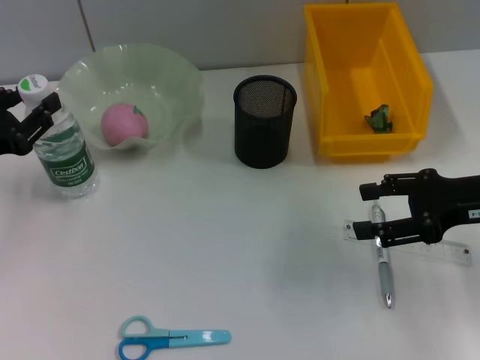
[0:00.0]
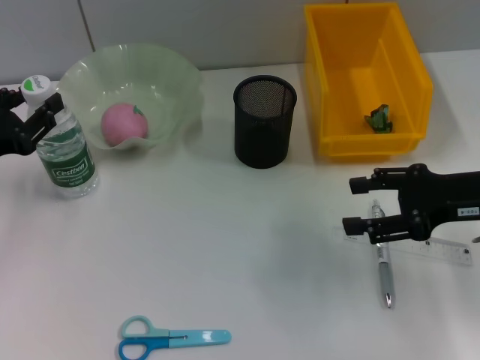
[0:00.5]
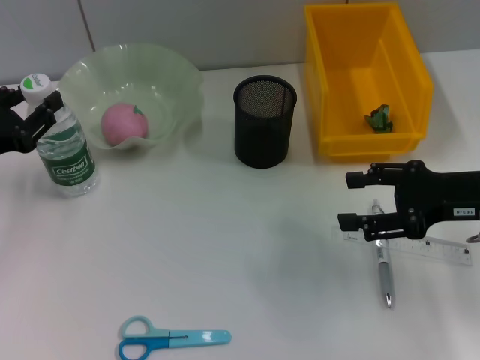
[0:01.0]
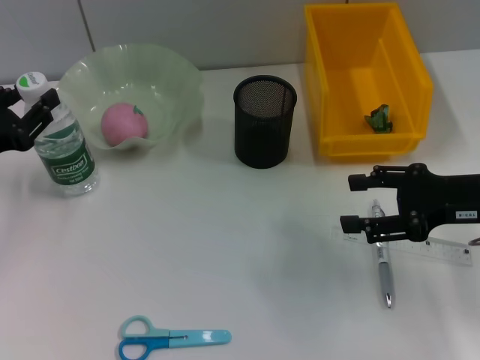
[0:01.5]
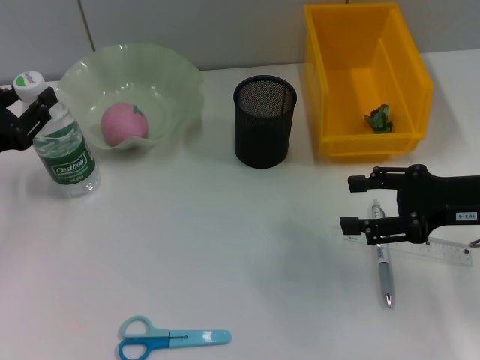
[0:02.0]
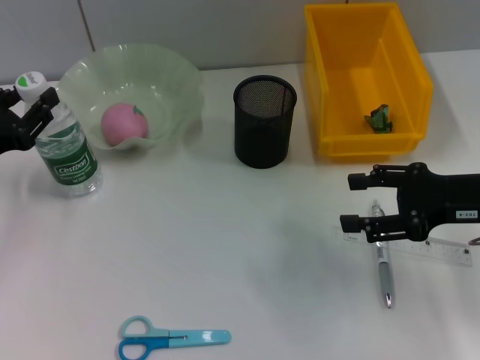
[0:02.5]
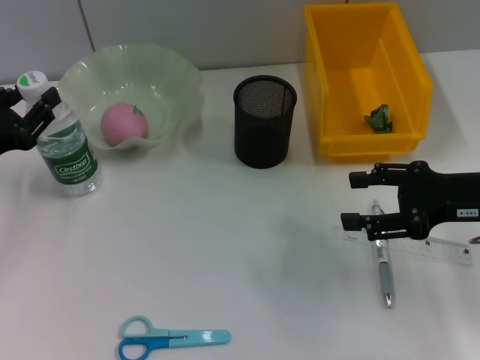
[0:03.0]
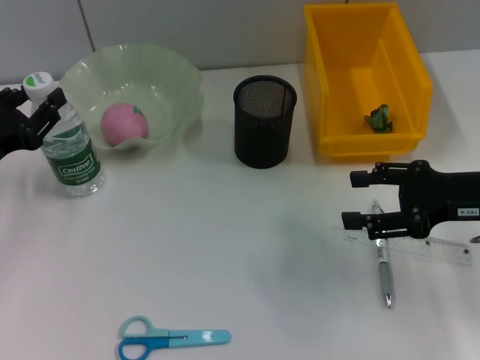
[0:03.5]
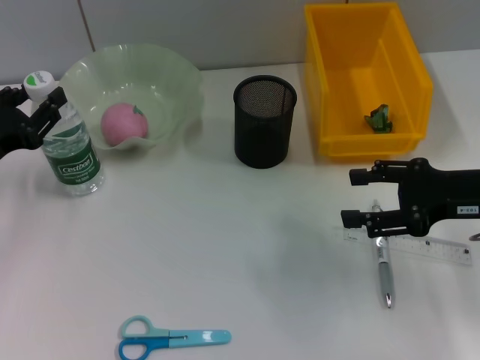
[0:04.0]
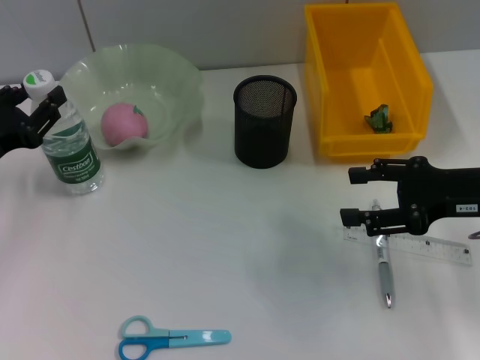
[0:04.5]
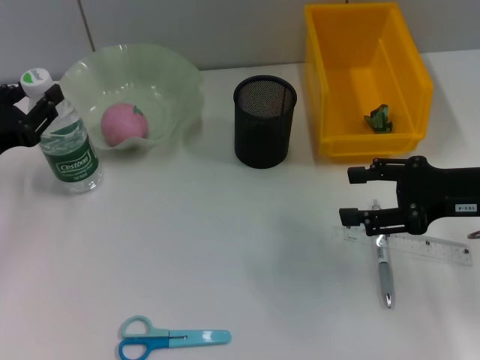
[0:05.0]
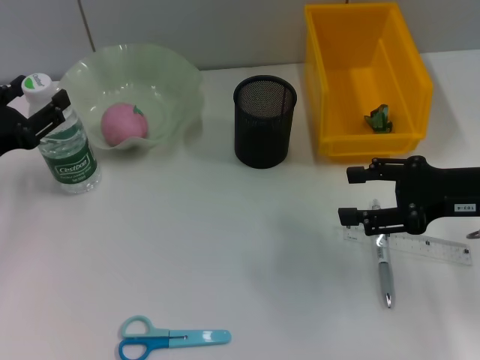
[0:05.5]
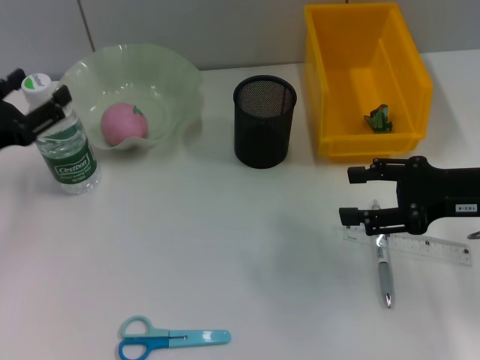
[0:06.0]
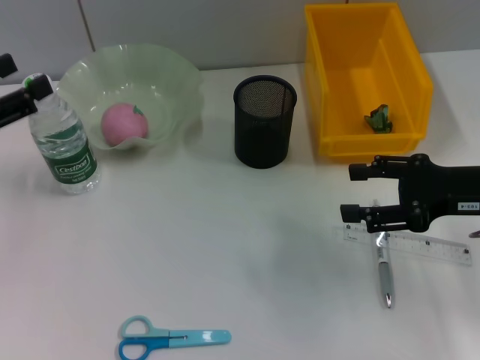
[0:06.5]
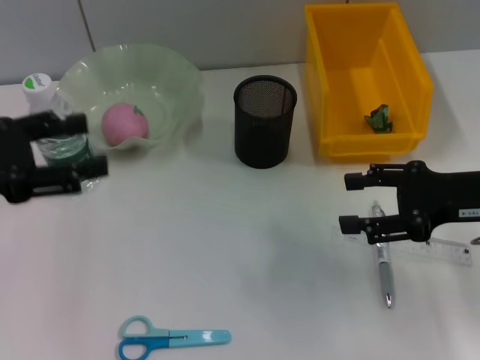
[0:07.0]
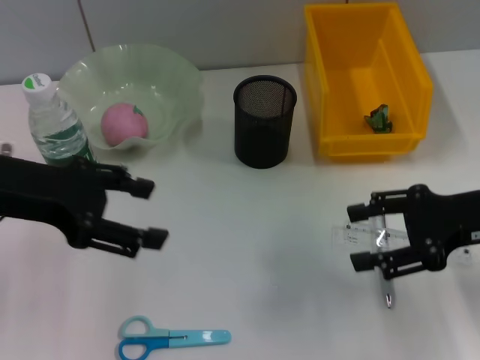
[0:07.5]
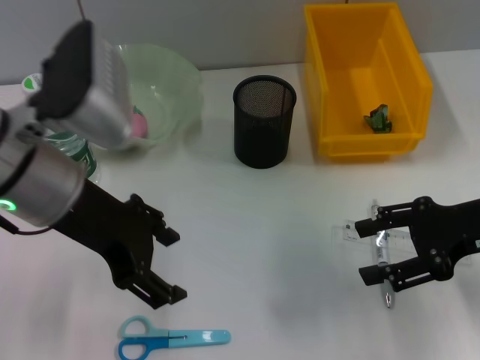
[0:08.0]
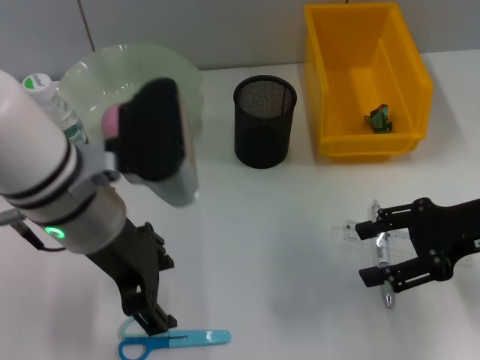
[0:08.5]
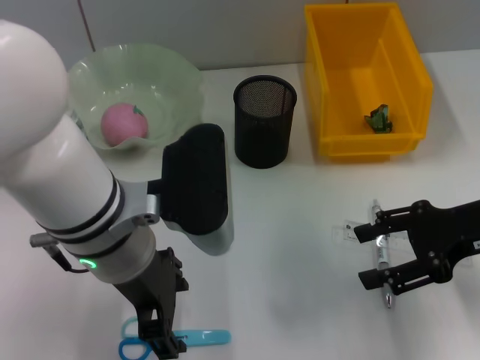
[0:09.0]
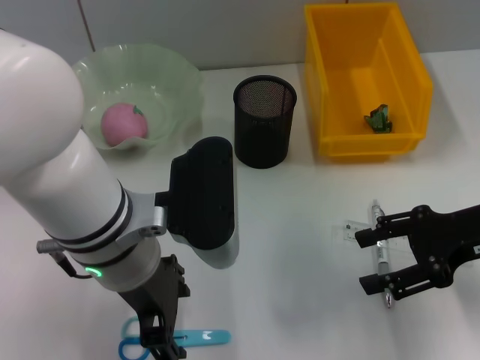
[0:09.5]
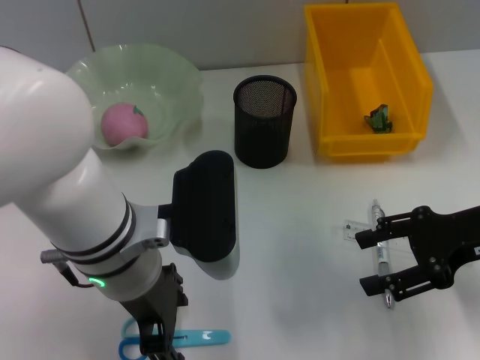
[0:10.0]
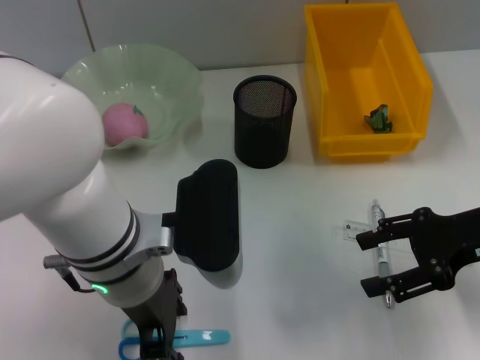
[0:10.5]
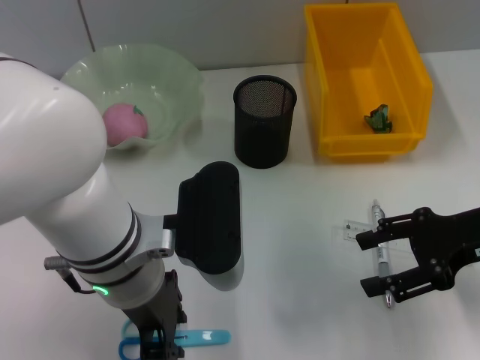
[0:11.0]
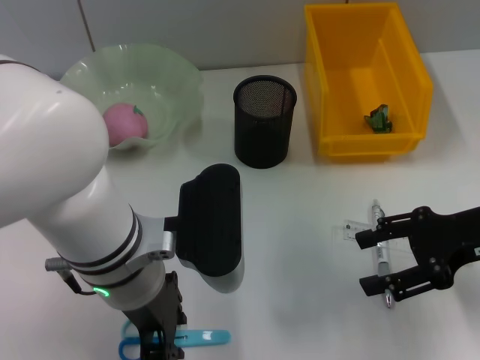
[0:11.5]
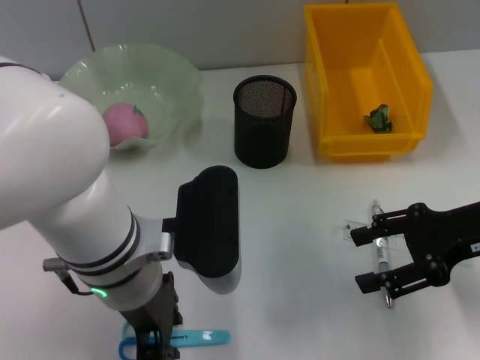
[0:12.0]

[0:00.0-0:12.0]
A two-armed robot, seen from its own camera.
Step, 0:00.0 to 0:05.0: Place the water bottle on the table with the left hand.
0:00.0 to 0:02.0: There are only small adjustments of the grippers.
0:02.0 to 0:04.0: Both grippers stay put.
0:04.0 to 0:06.0: The left gripper opens its fingers.
0:06.0 to 0:08.0: The left gripper is displaced to the right and upward by some 20 cm.
0:08.0 to 0:10.0: The left gripper shifts approximately 10 cm to the right and downward.
0:10.0 to 0:12.0: The left gripper closes up.

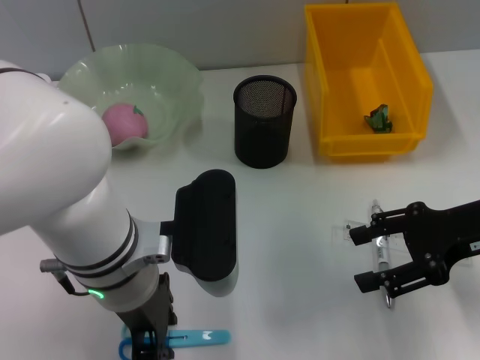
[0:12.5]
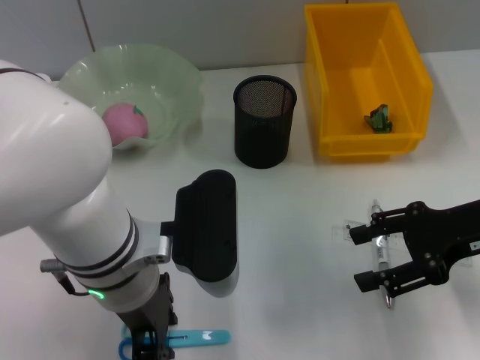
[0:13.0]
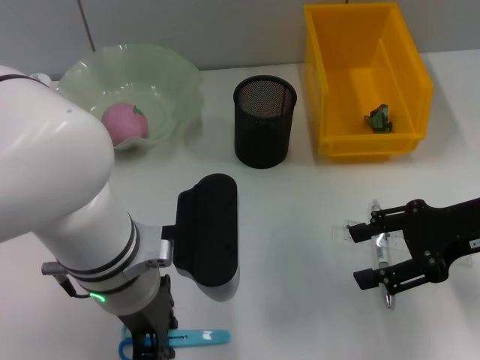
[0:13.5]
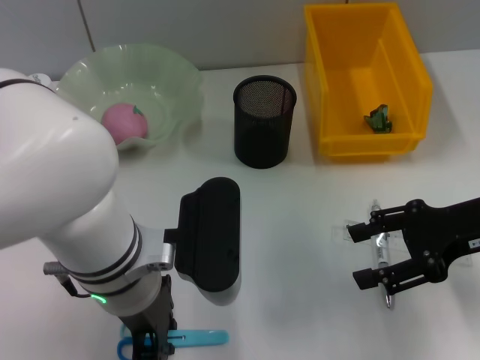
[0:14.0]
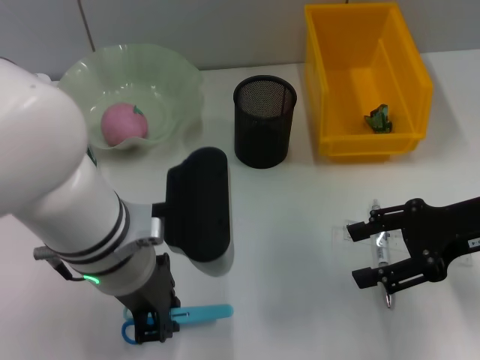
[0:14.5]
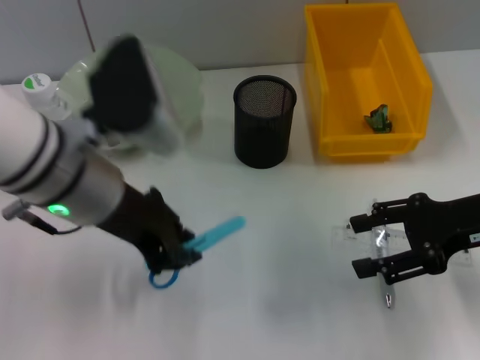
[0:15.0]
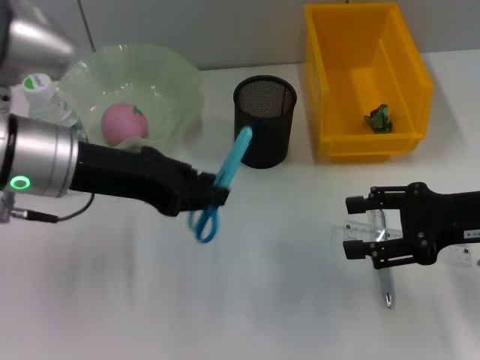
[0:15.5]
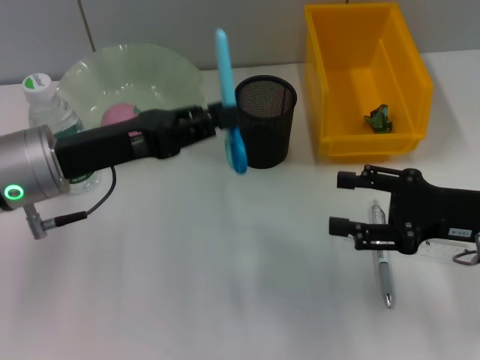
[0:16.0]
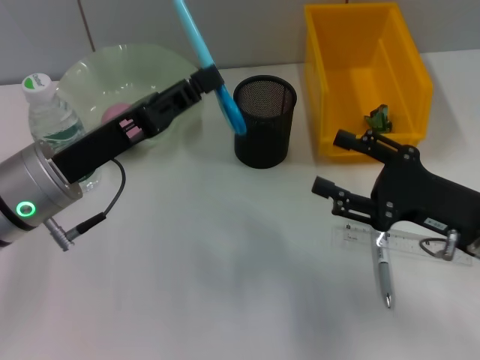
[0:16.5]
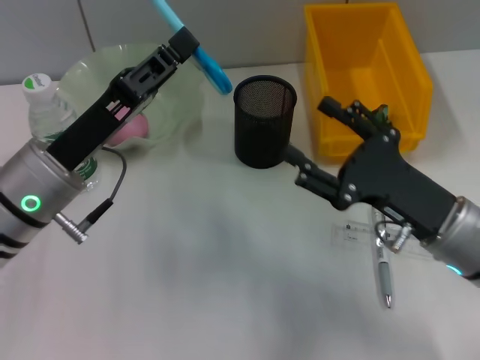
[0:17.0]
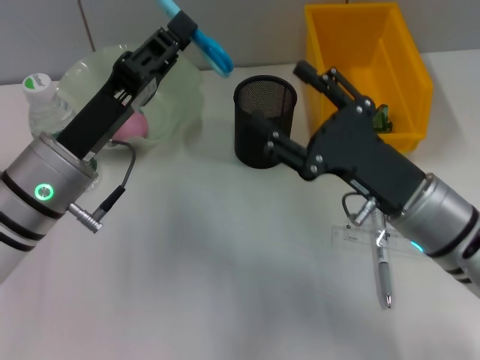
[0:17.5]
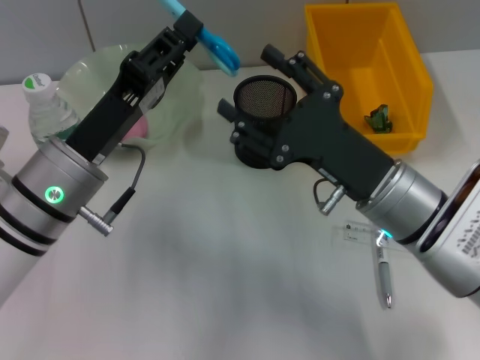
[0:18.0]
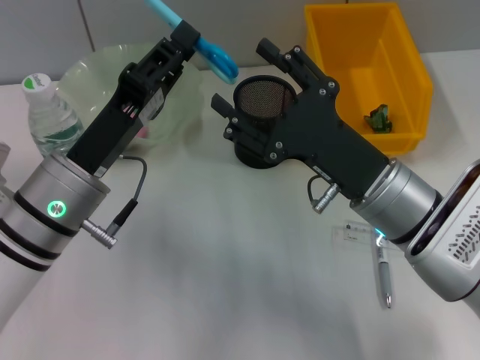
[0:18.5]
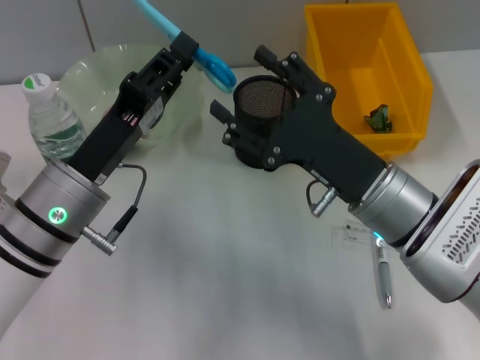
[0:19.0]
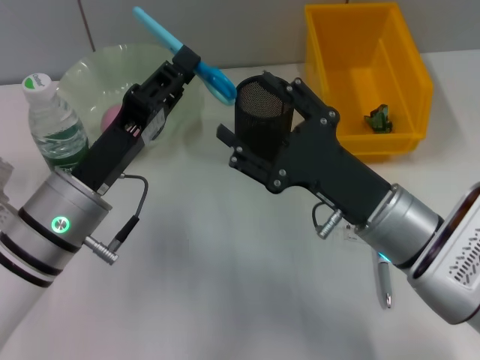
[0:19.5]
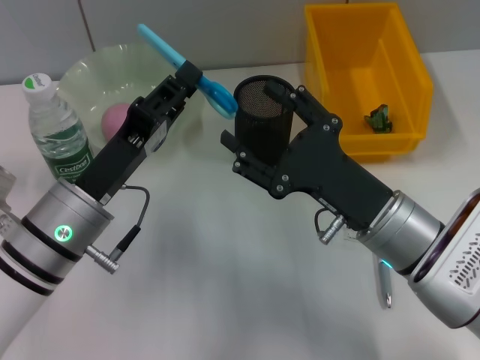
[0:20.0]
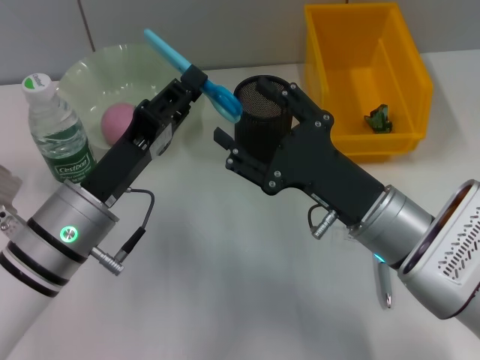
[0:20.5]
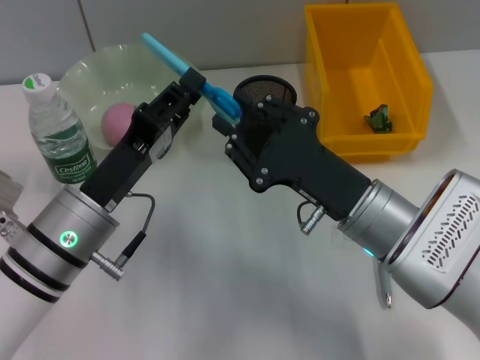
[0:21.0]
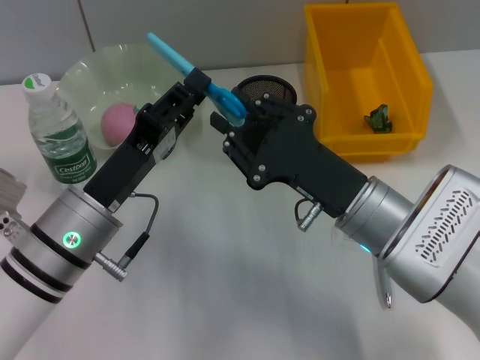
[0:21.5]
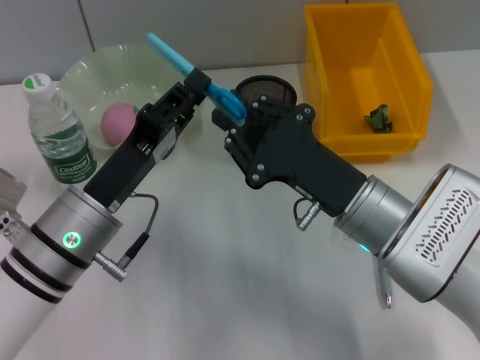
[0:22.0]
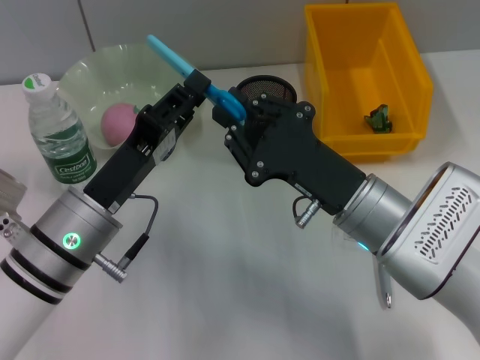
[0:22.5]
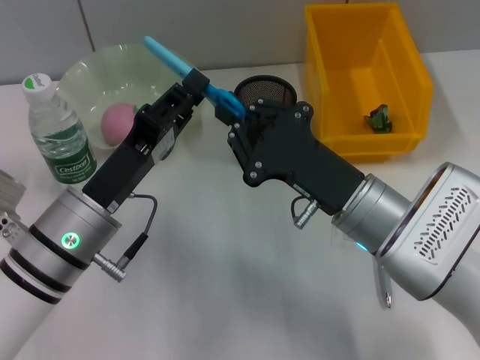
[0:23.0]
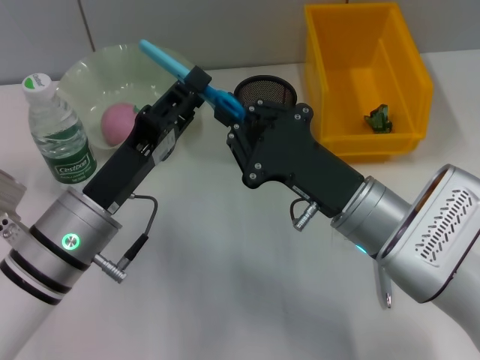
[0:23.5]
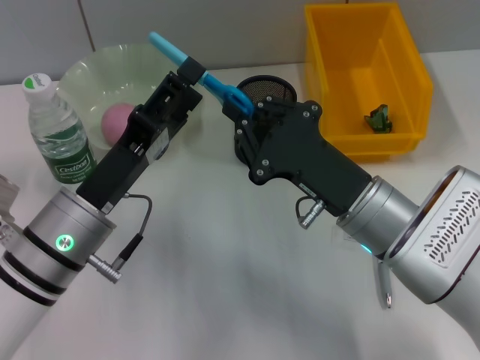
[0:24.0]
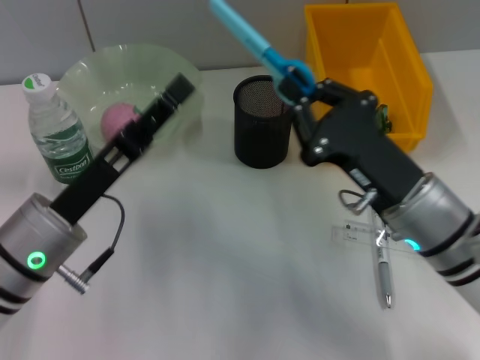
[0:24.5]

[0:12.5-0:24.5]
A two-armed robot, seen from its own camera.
Step, 0:14.0 to 0:23.0: Pass the blue scissors from the left hand to the right hand.
0:12.5 to 0:14.5: The grippers stay close to where they were, moving slightly.
0:14.5 to 0:16.5: The right gripper moves downward, approximately 5 cm, while the left gripper heads to the left, covering approximately 10 cm.
0:16.5 to 0:18.5: The right gripper shifts roughly 10 cm to the left.
0:20.5 to 0:22.5: The right gripper closes.
0:22.5 to 0:24.5: The left gripper opens its fingers.

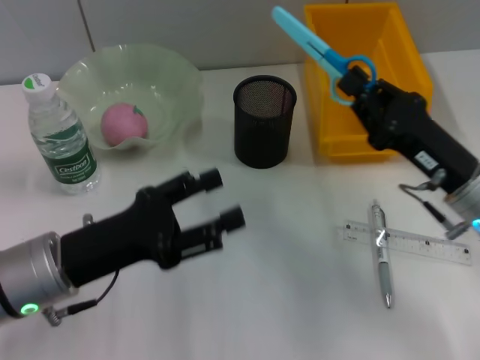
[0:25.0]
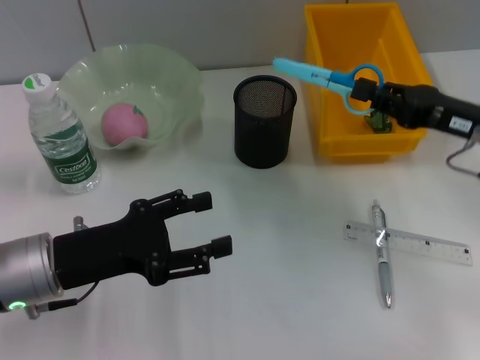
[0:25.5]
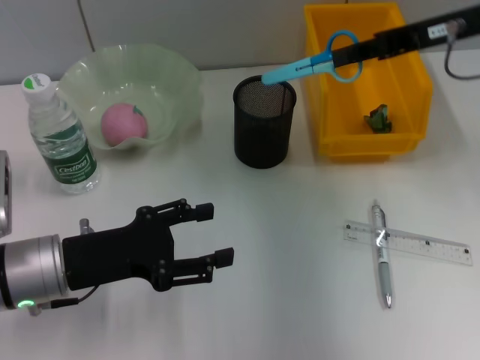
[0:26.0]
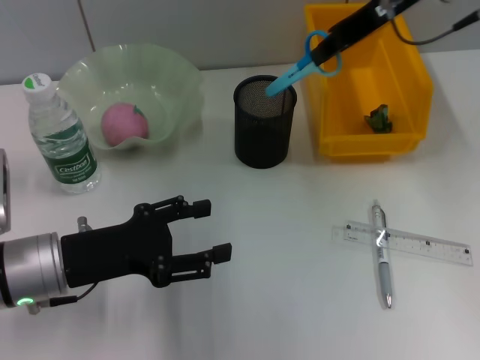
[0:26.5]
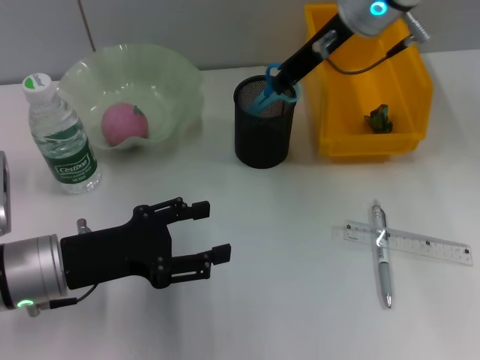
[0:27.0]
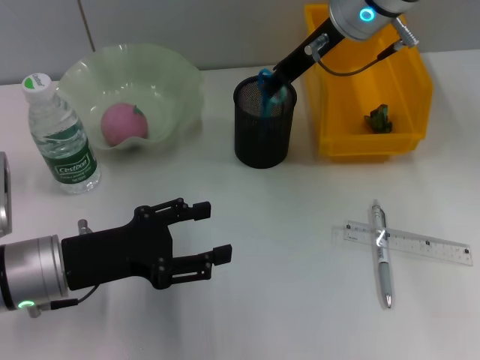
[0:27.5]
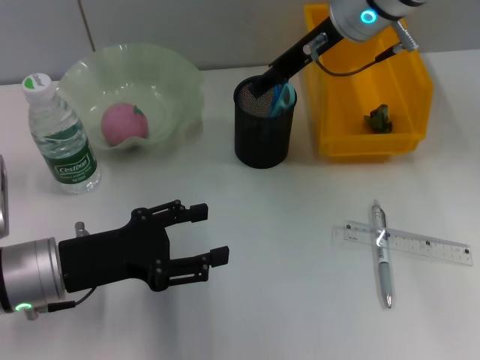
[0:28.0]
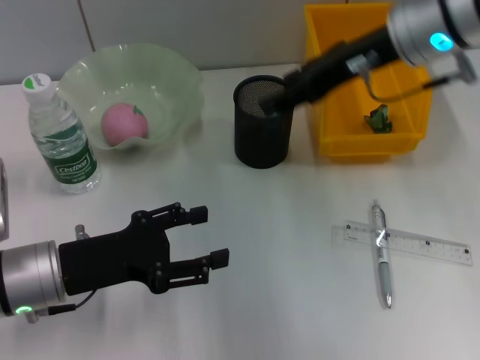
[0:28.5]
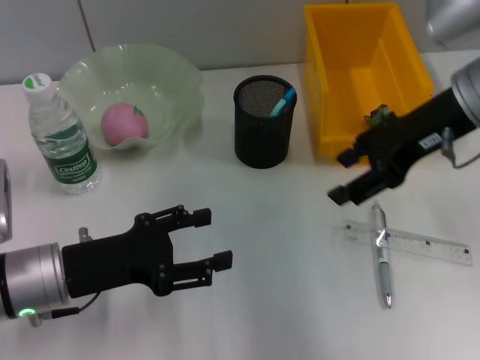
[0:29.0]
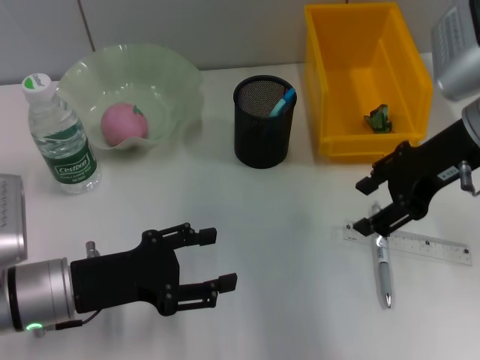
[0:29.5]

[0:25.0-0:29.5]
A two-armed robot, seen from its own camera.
Step, 0:25.0 to 0:28.0: Place the blue scissors into the pen holder with the right hand.
0:25.0 to 0:27.0: The right gripper moves forward, upward and to the left, approximately 25 cm.
0:27.0 to 0:29.5: The right gripper goes roughly 15 cm backward and to the right, and opens its fingers.
